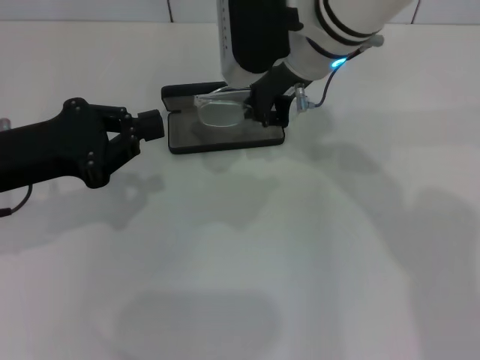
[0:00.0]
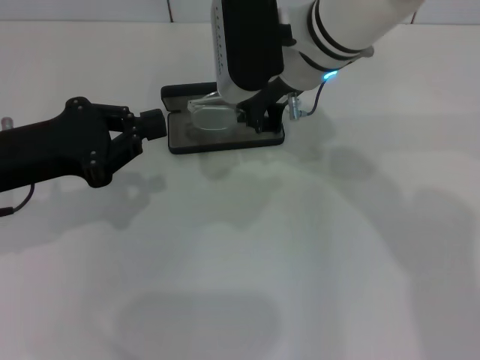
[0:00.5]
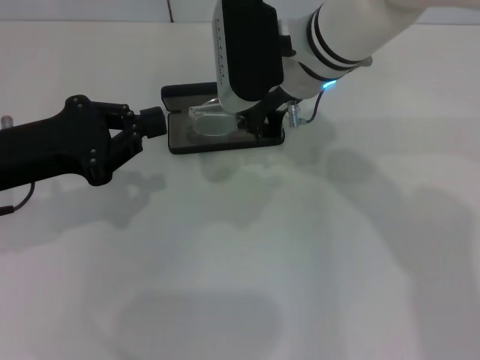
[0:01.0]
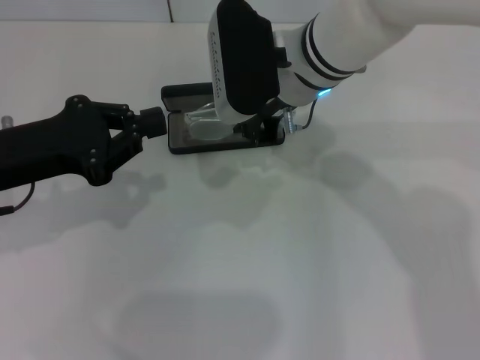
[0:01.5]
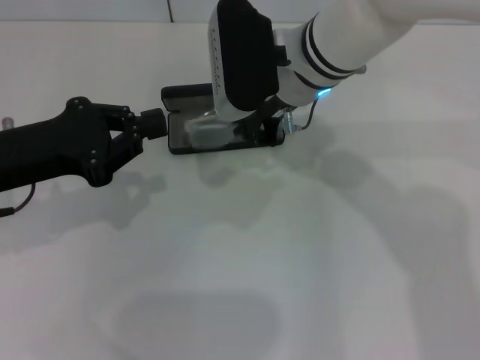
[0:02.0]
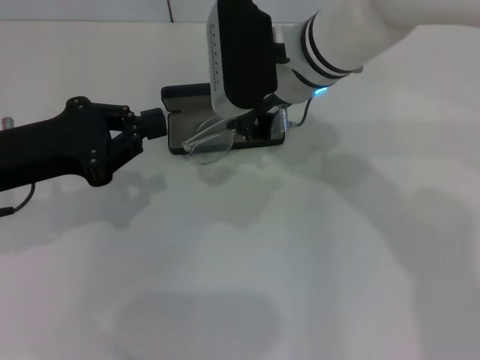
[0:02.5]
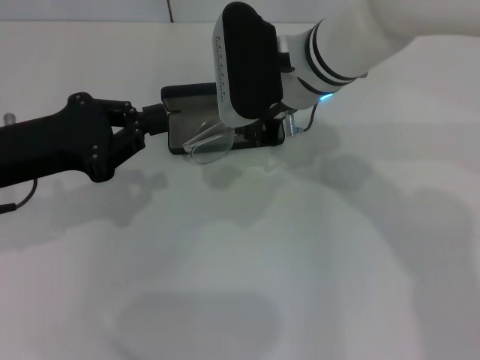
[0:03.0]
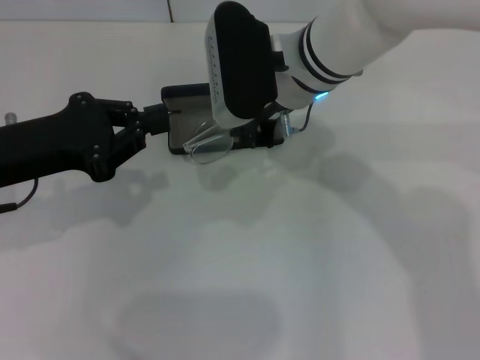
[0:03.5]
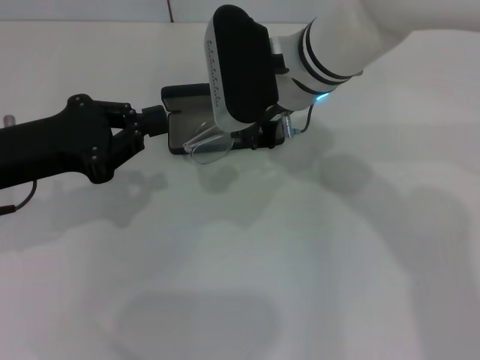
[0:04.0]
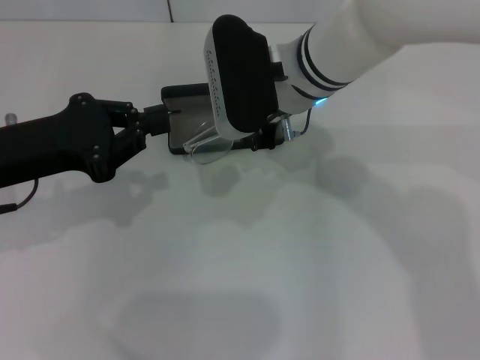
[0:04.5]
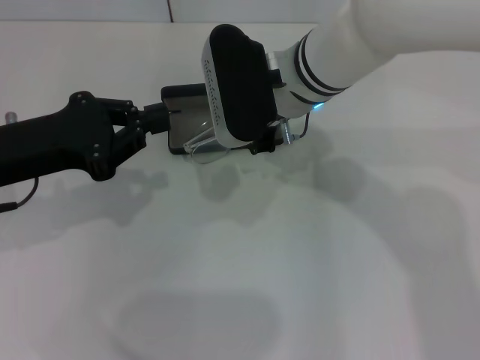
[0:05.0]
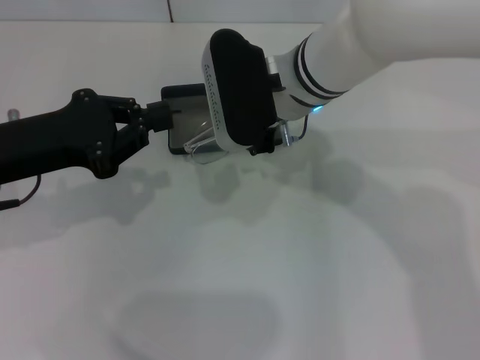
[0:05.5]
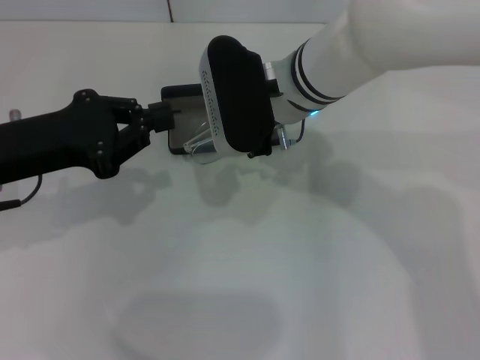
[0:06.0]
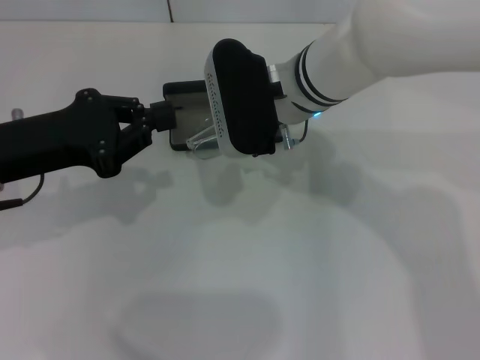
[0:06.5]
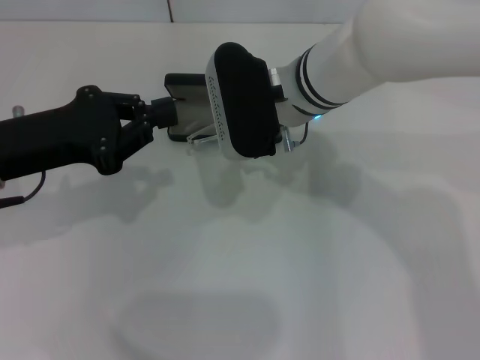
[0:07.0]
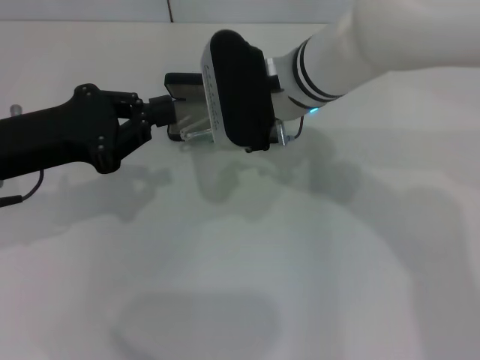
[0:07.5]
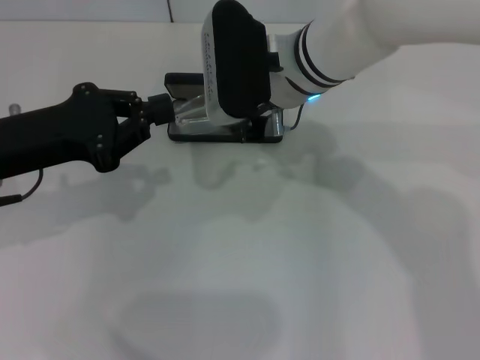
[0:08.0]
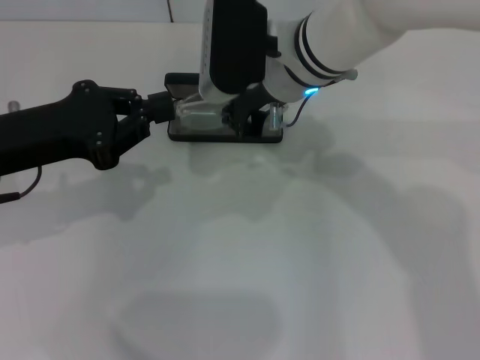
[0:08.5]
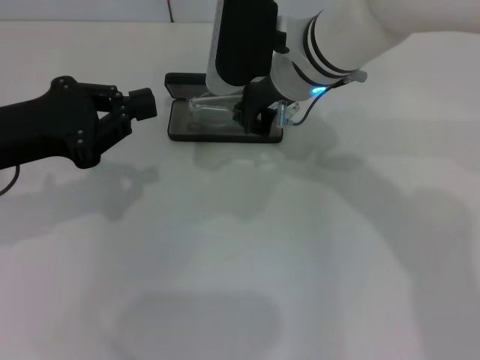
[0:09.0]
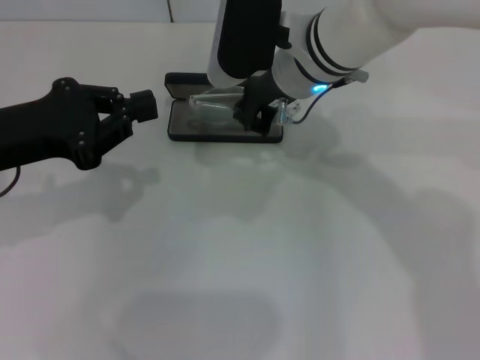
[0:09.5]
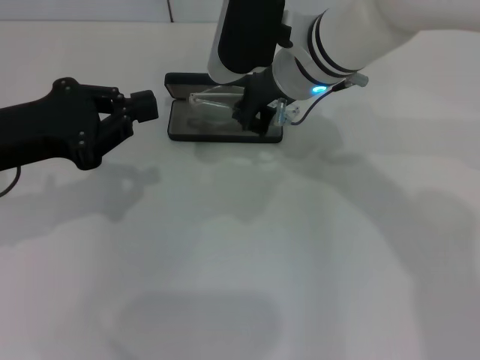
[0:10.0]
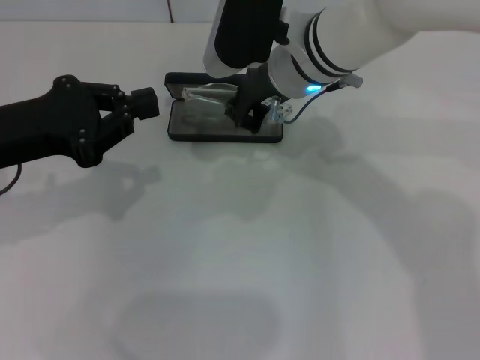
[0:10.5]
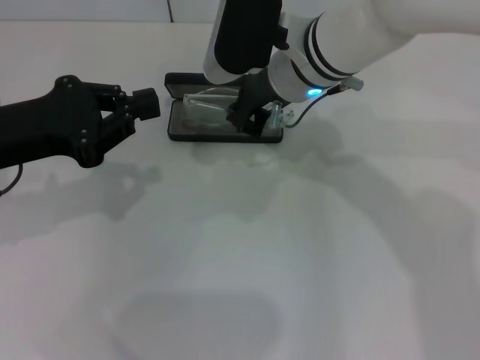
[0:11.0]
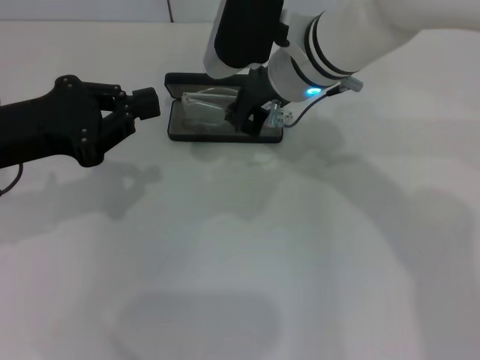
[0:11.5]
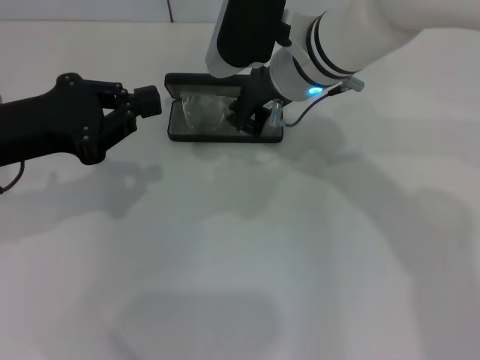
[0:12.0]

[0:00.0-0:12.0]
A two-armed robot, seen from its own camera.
0:00.0 to 0:02.0: The grippers stay close to where they were, moving slightly.
0:02.0 to 0:04.0: Both grippers stay about where they are.
0:04.0 to 0:08.0: There are only small adjustments of the grippers.
0:08.0 to 0:10.0: There are only small adjustments of the grippers.
0:10.0 to 0:12.0: Both grippers stay put.

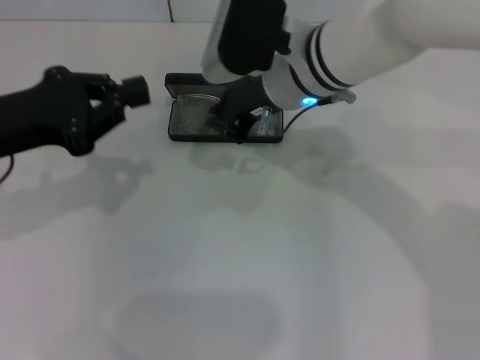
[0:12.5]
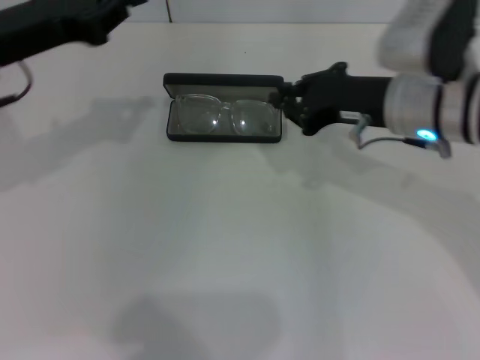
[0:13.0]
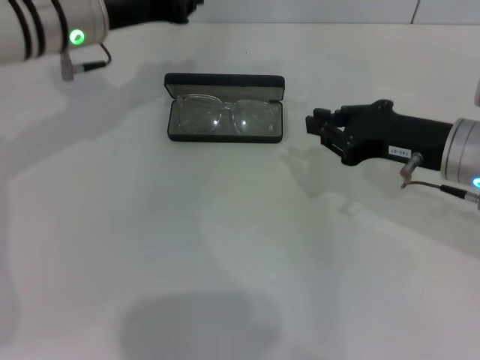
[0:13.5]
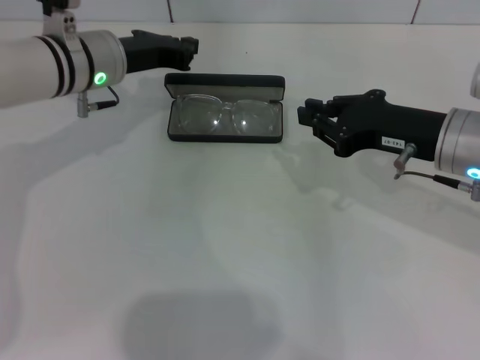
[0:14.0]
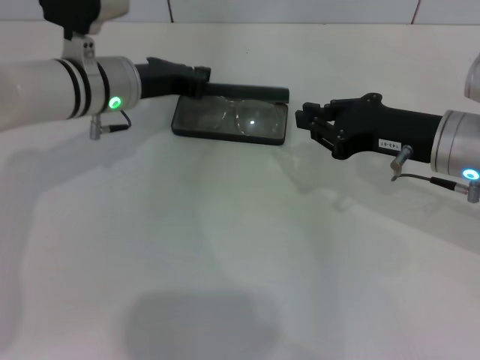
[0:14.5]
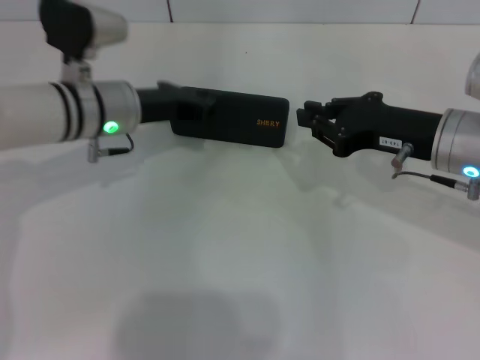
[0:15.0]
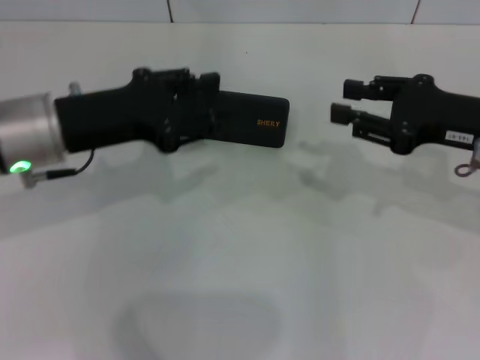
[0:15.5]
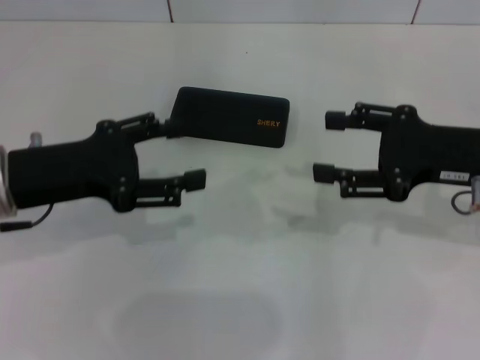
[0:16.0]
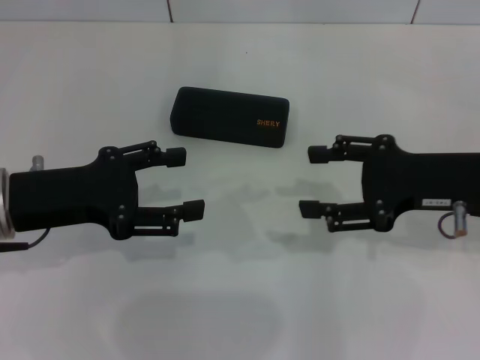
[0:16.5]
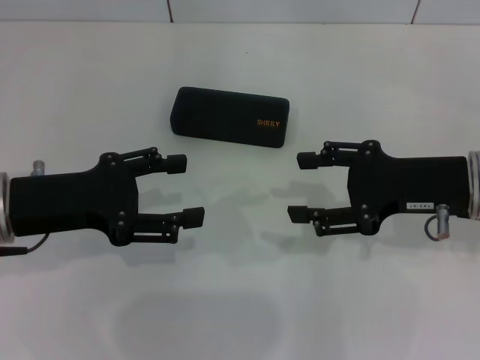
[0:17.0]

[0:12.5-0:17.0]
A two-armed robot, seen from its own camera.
Step, 0:12.5 to 0:14.5: Close the glasses case with your left hand.
0:12.5 to 0:14.5: The left gripper moves forward, to the right and downward, some 20 cm. The right gripper is displaced to the right and backward by some 20 cm.
0:14.5 to 0:17.0: The right gripper opens. Meanwhile the left gripper moves backward and to the left, roughly 15 cm, and opens up.

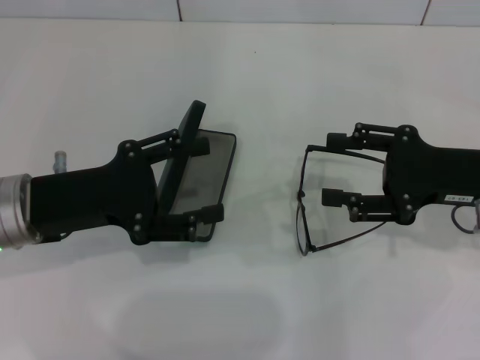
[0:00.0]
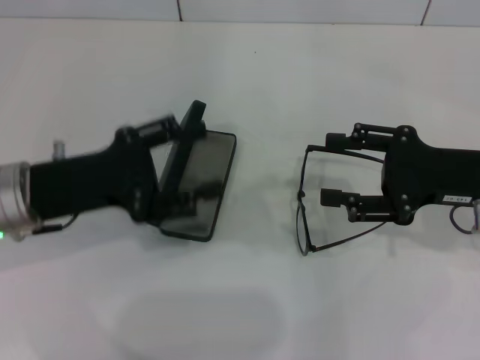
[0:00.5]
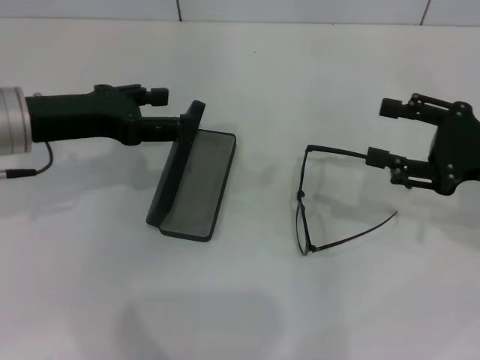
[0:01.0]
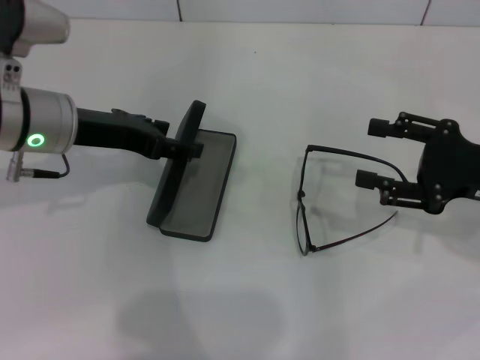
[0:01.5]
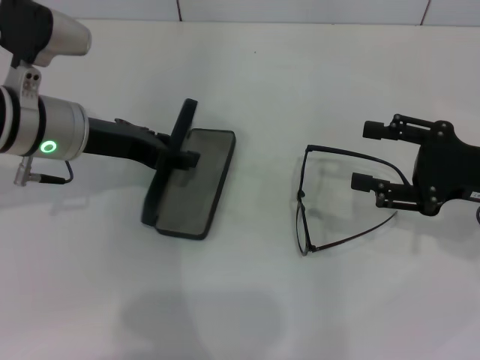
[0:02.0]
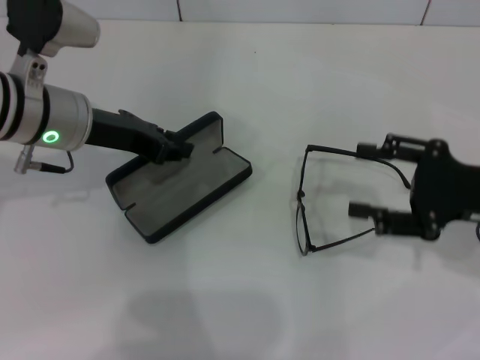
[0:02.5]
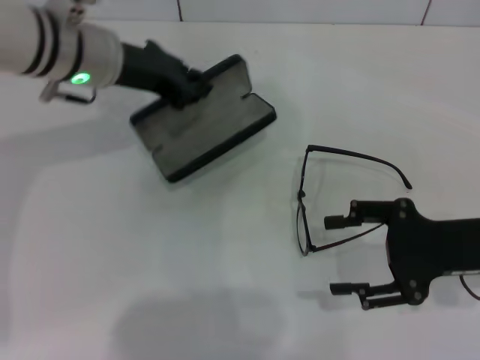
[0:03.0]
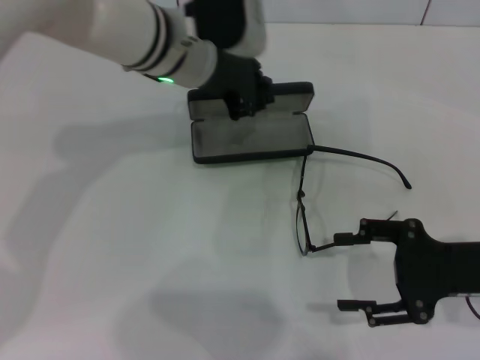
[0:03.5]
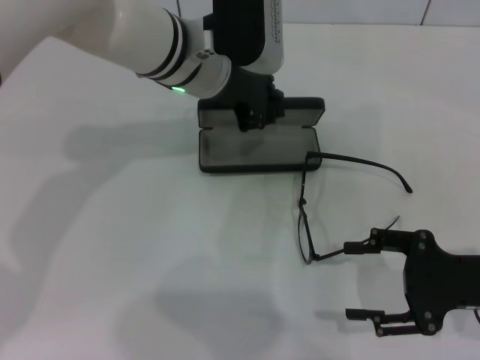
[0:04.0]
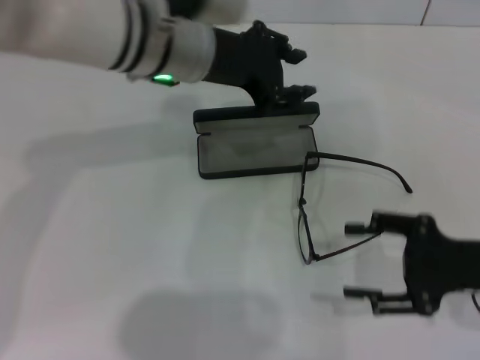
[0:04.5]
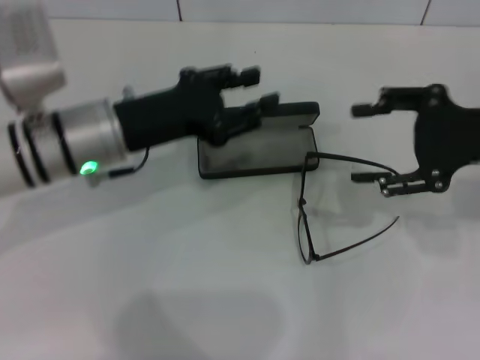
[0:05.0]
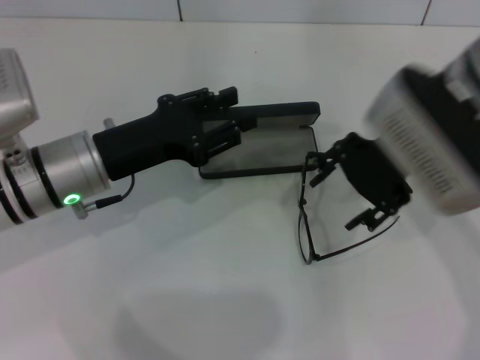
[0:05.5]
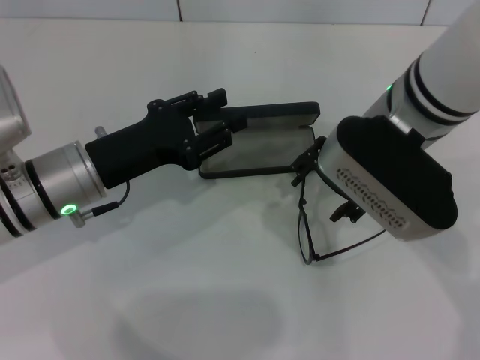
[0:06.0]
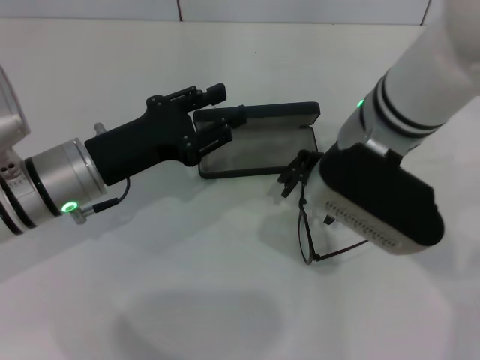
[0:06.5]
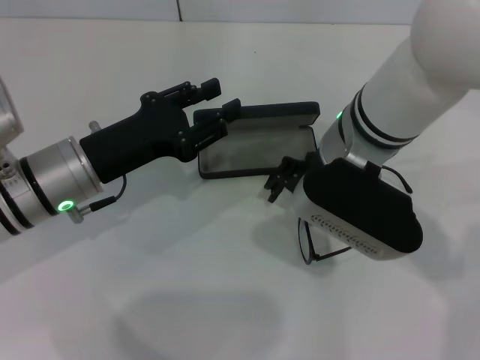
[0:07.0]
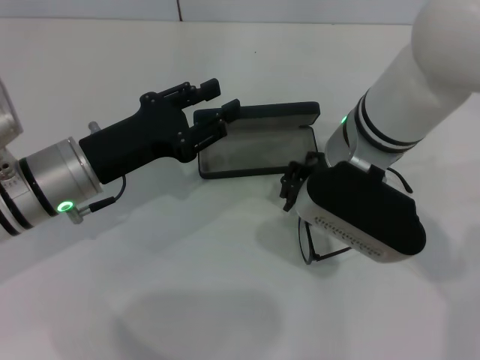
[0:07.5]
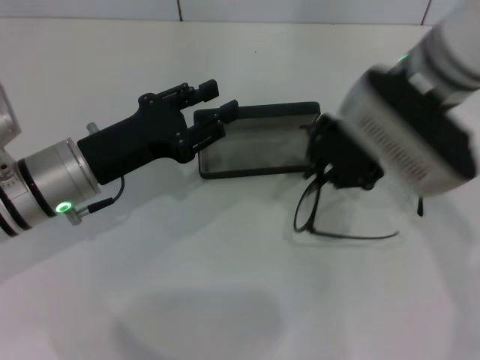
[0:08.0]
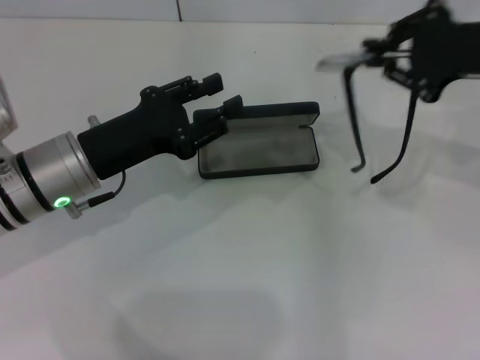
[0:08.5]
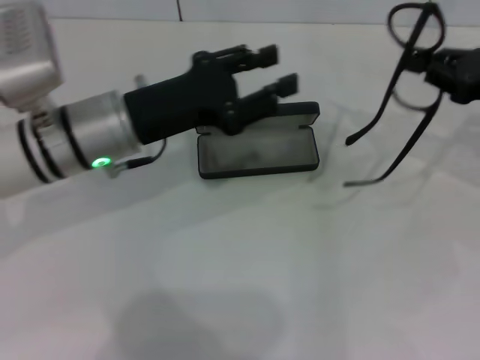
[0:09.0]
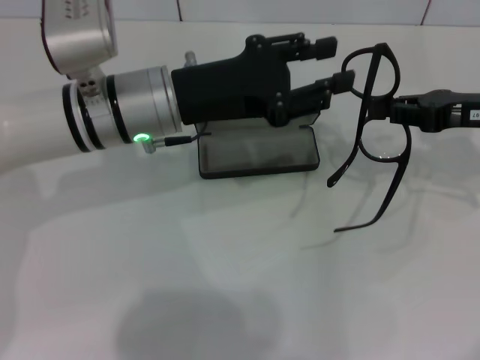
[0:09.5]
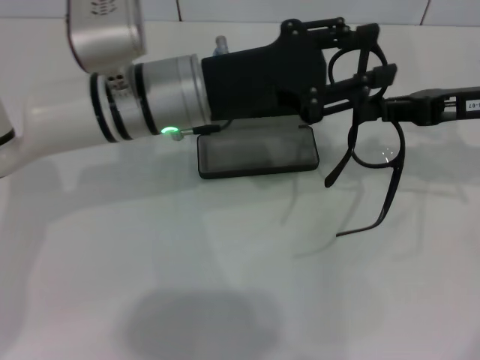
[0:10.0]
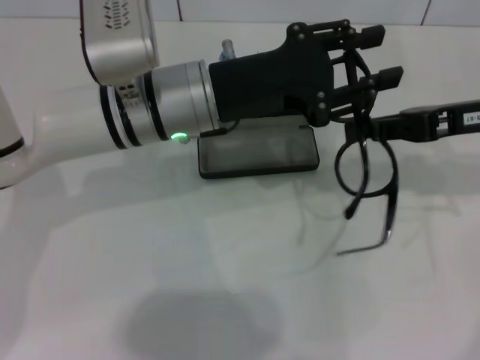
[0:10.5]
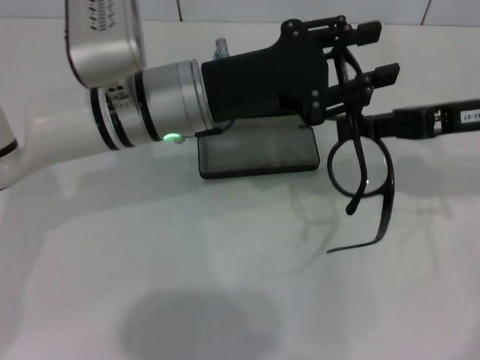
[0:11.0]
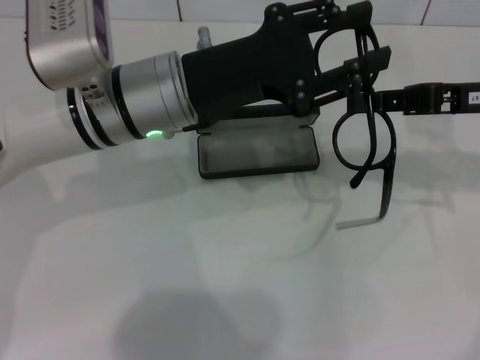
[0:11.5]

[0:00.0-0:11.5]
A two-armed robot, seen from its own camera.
Step, 0:00.0 to 0:02.0: Grab the glasses case with your left hand.
Step, 0:02.5 to 0:04.0: Place the glasses case in the center of the table with your left hand.
Step, 0:04.5 to 0:07.5: Grab the eyeglass frame with your right hand.
0:00.0 to 0:02.0: The left gripper heads forward, covering approximately 10 cm.
0:02.0 to 0:04.0: The right gripper travels backward by about 5 cm, while the left gripper shifts some 15 cm to the right, and closes.
0:04.0 to 0:06.0: The right gripper heads to the left, upward and forward, covering about 25 cm. The left gripper shifts roughly 20 cm to the left, backward and downward.
0:06.0 to 0:07.5: The grippers stay close to where they were, moving slightly.
0:07.5 to 0:09.5: The left gripper travels to the right and upward by roughly 10 cm. Meanwhile the right gripper heads to the right, covering about 20 cm, and closes up.
